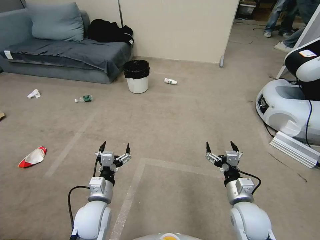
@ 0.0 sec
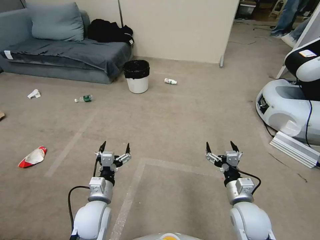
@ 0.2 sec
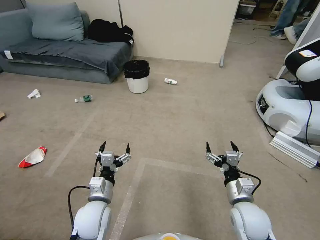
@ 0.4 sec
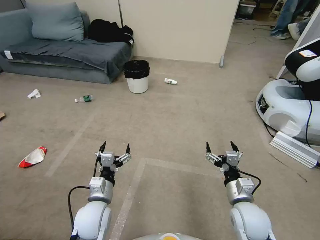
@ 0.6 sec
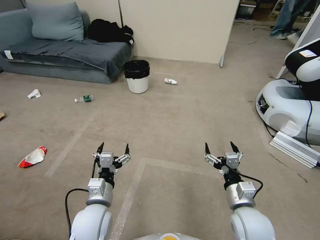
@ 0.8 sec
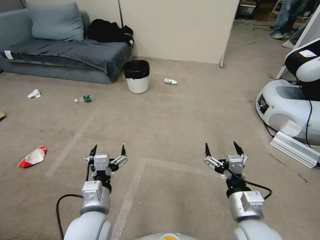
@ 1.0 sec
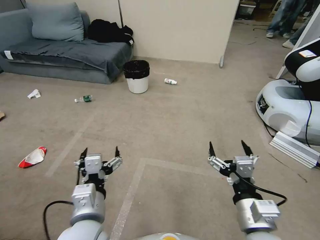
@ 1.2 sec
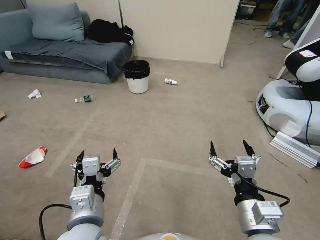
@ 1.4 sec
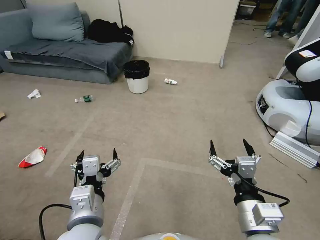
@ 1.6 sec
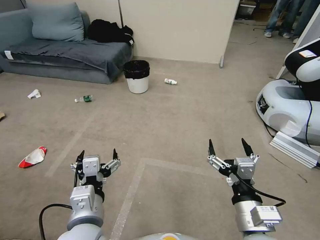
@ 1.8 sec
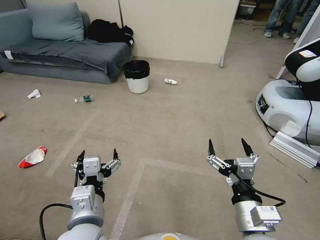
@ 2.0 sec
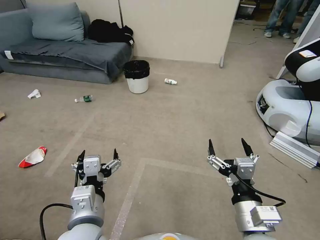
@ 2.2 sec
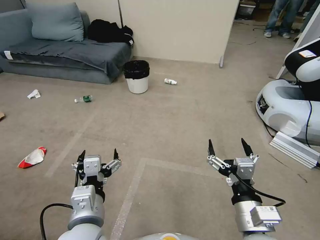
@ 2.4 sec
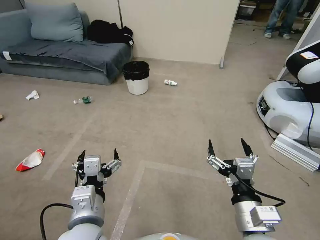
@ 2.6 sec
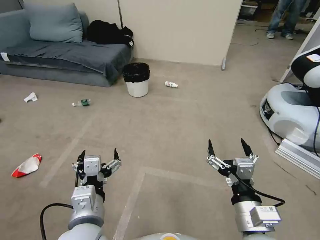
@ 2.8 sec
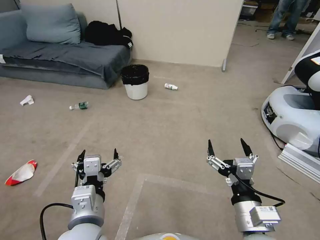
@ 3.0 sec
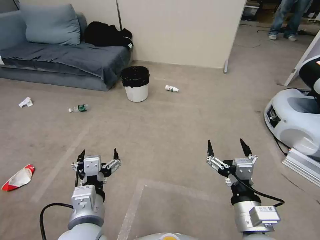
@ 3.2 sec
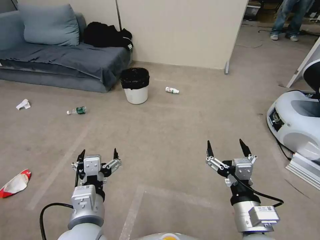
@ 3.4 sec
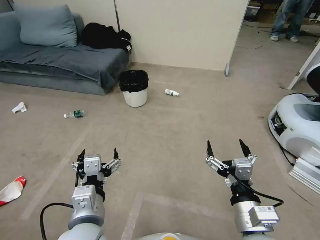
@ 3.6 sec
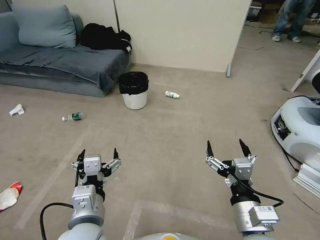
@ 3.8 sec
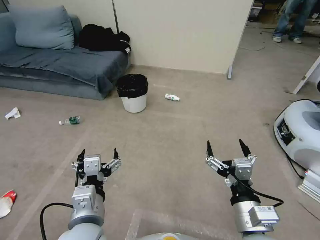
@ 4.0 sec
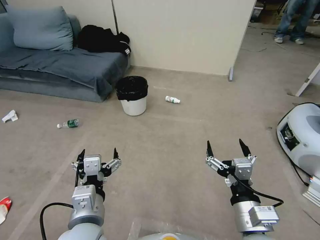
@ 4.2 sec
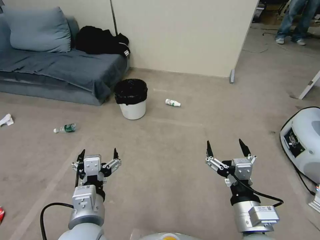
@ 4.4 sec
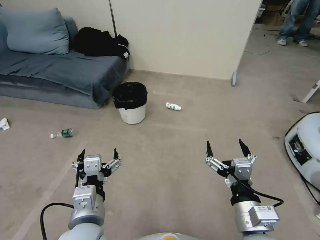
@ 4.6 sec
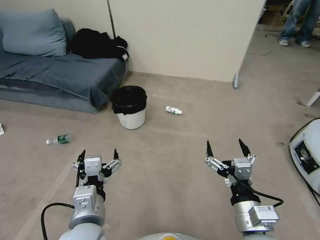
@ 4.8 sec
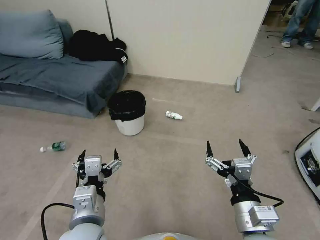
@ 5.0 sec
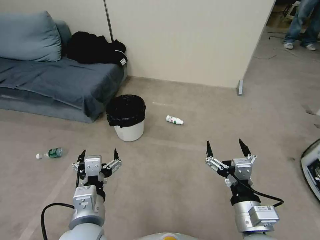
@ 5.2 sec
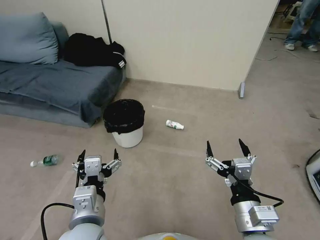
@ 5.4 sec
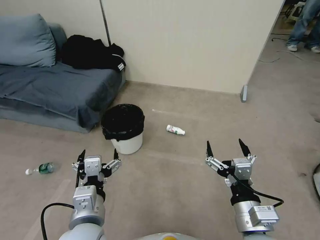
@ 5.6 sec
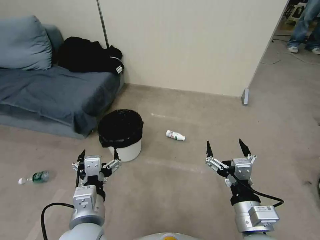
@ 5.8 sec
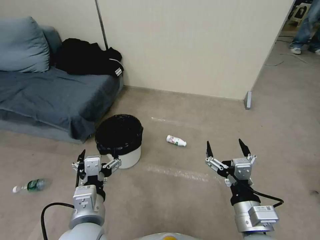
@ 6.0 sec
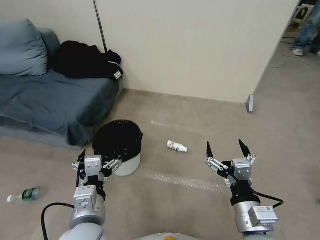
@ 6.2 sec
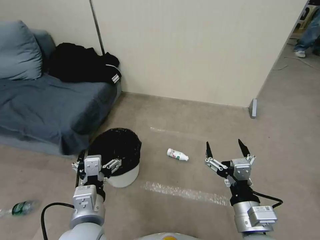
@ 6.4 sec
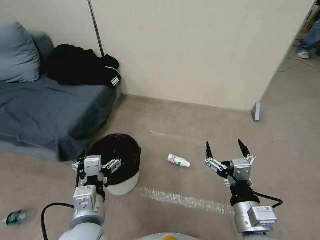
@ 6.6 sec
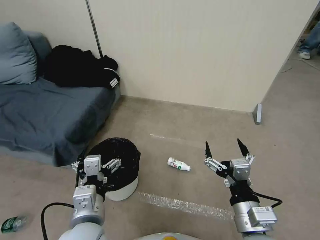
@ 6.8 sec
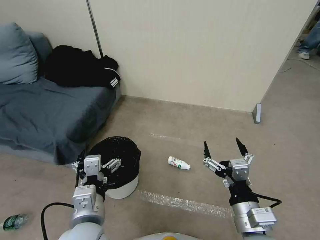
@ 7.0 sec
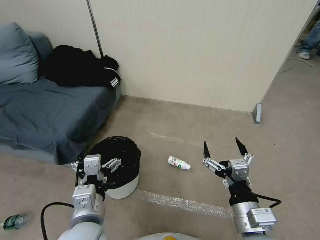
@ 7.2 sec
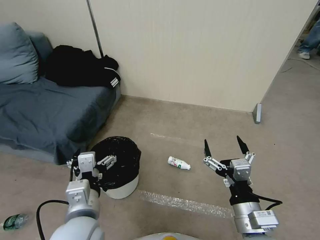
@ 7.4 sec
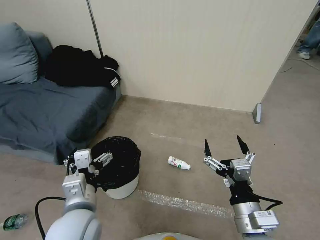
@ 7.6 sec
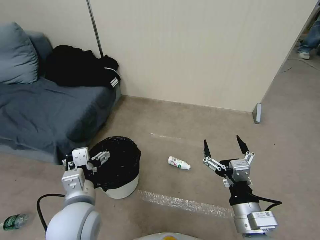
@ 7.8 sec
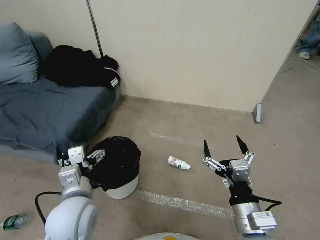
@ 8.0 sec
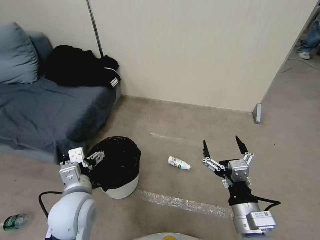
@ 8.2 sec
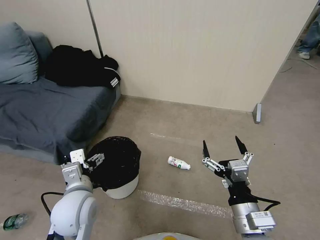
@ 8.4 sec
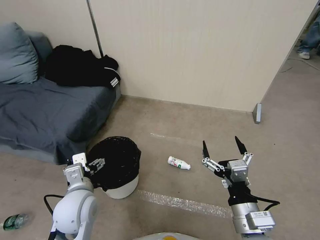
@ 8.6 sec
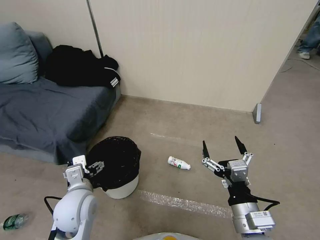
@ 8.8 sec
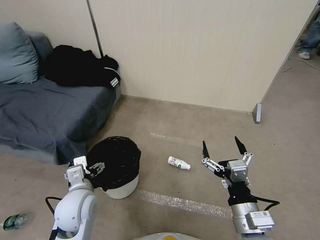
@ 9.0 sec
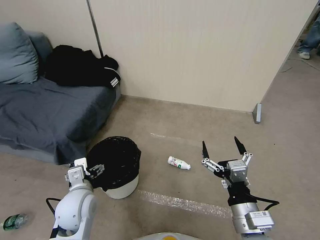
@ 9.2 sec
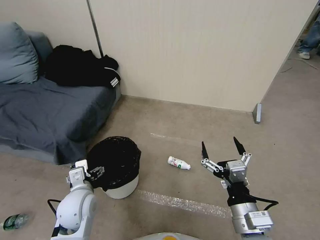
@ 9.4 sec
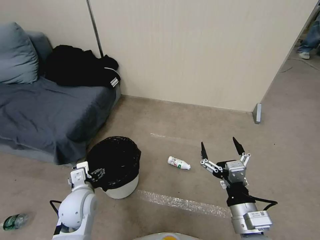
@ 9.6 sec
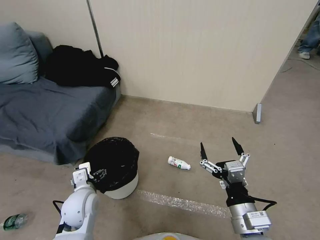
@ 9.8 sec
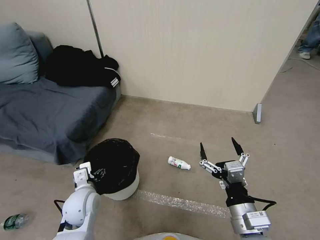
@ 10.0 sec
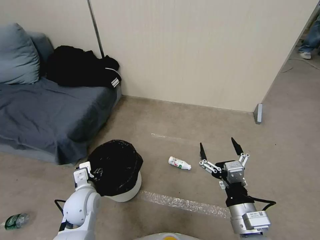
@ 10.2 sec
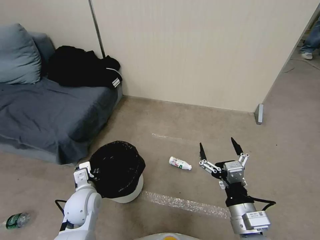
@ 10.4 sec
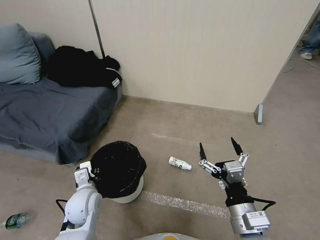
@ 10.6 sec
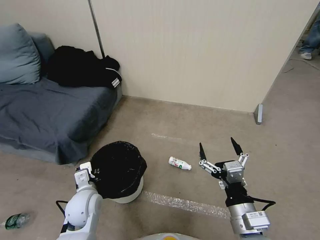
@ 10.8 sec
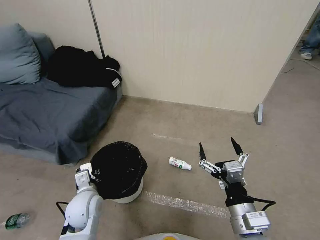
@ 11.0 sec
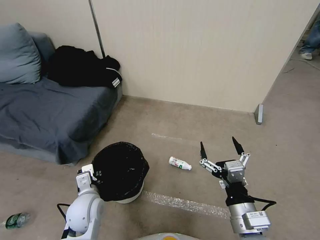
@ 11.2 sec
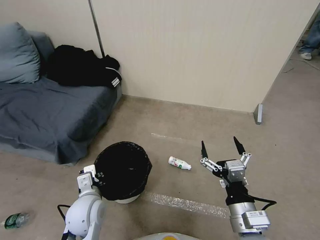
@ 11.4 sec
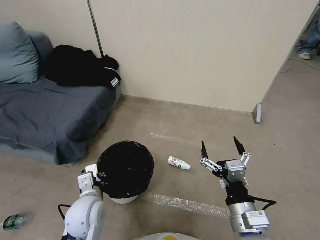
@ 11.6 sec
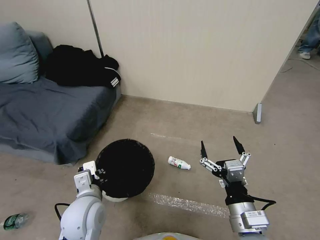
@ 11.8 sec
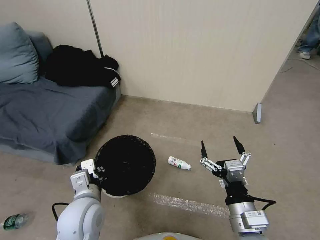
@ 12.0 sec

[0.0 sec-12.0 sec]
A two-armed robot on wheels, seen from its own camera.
Task of the whole recording: Pick up the trash bin, then pick up the garbage from the floor and place it into the trash bin.
1.6 sec to 3.0 sec: Both grippers stay put.
7.6 sec to 9.0 sec: The left gripper shifts approximately 10 cm downward and forward.
9.0 sec to 10.4 sec: The left gripper moves downward, about 5 cm, and closes its fingers.
10.4 sec to 12.0 sec: The left gripper shifts roughly 10 cm upward and backward, and closes.

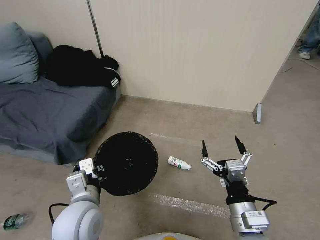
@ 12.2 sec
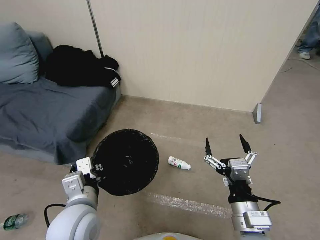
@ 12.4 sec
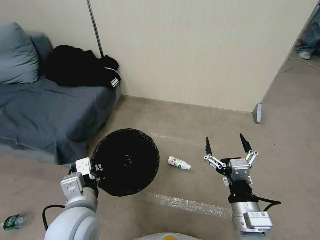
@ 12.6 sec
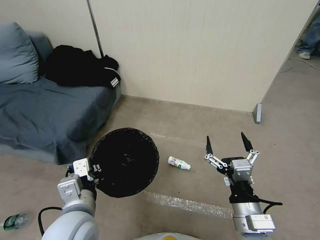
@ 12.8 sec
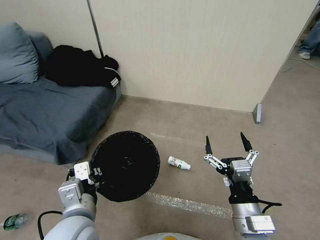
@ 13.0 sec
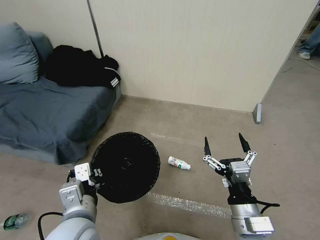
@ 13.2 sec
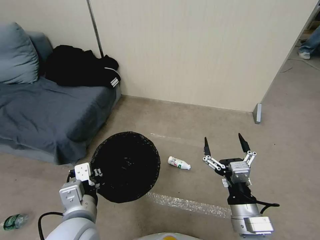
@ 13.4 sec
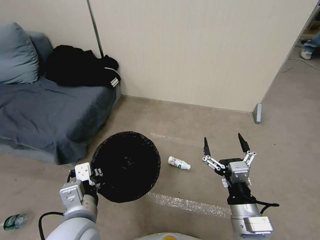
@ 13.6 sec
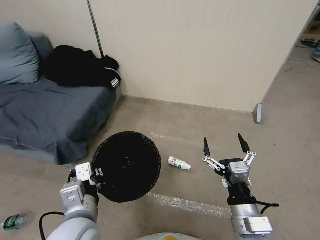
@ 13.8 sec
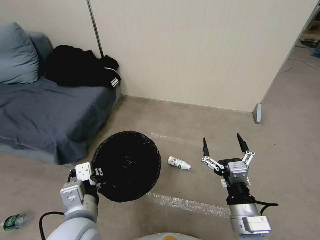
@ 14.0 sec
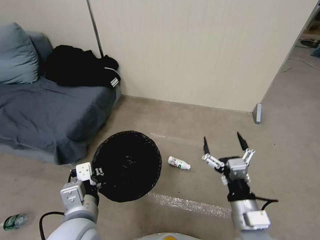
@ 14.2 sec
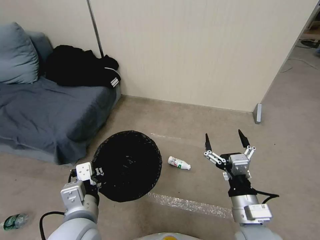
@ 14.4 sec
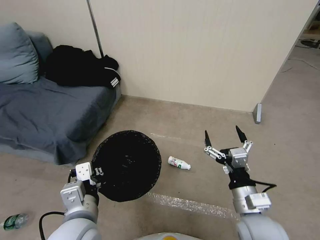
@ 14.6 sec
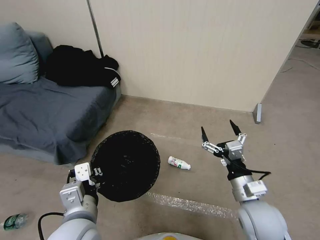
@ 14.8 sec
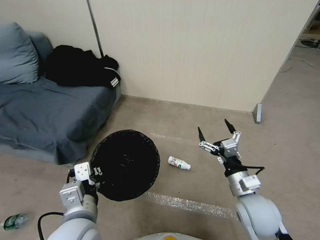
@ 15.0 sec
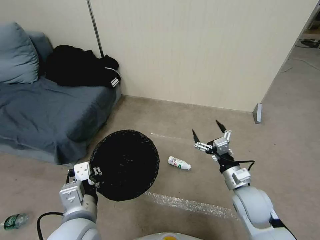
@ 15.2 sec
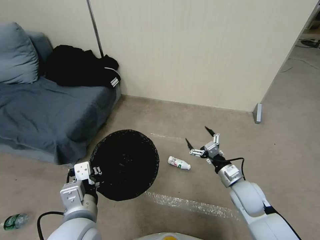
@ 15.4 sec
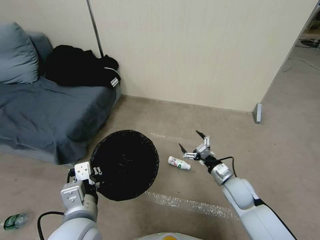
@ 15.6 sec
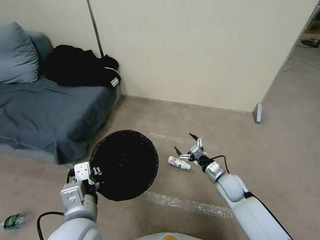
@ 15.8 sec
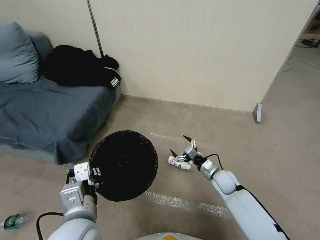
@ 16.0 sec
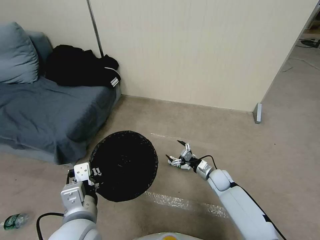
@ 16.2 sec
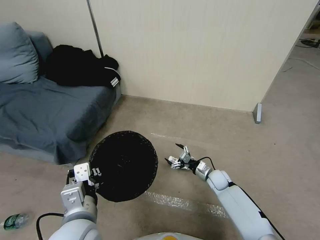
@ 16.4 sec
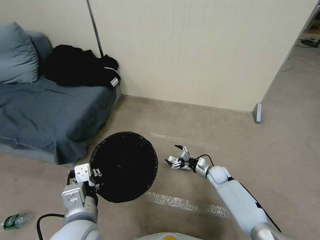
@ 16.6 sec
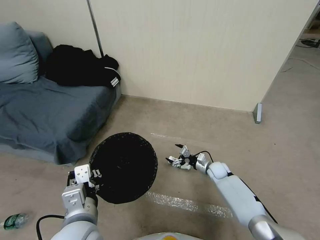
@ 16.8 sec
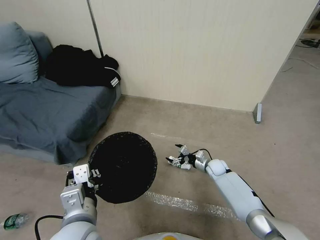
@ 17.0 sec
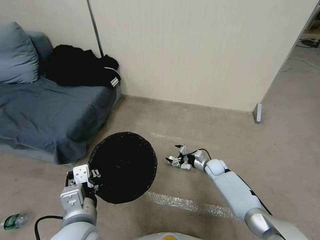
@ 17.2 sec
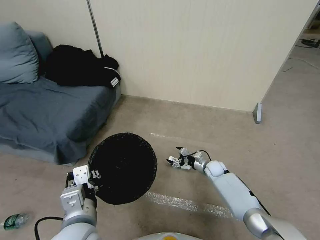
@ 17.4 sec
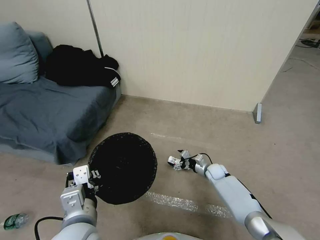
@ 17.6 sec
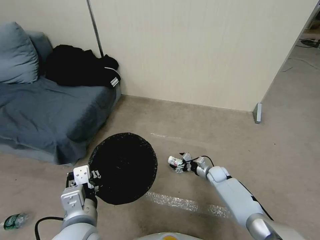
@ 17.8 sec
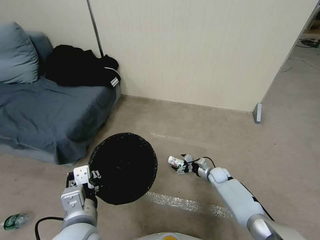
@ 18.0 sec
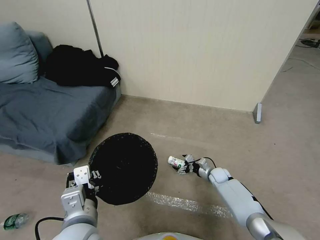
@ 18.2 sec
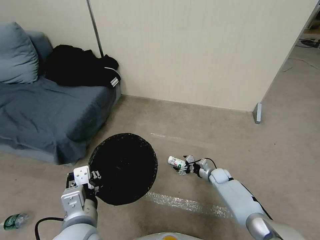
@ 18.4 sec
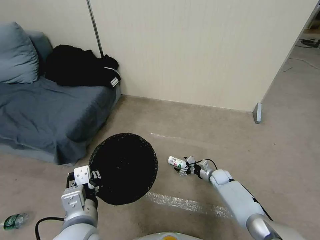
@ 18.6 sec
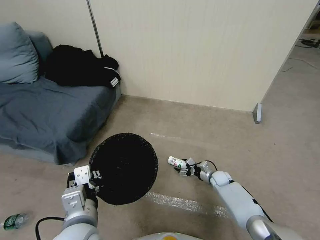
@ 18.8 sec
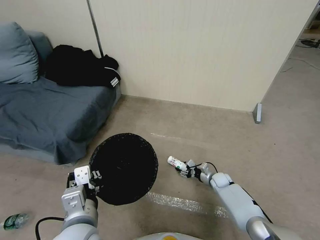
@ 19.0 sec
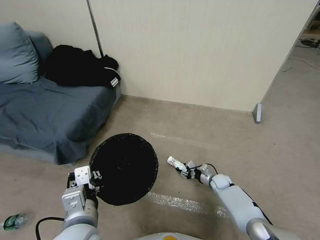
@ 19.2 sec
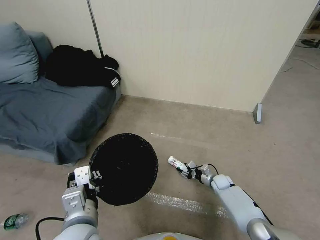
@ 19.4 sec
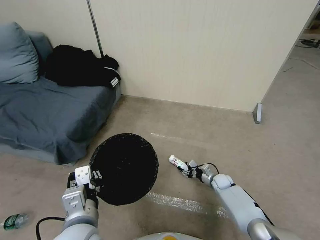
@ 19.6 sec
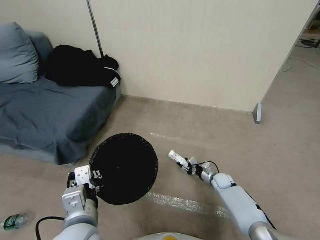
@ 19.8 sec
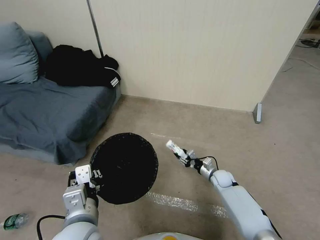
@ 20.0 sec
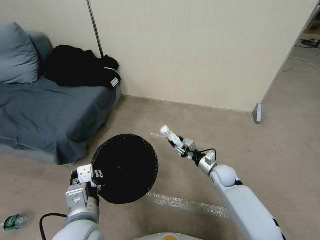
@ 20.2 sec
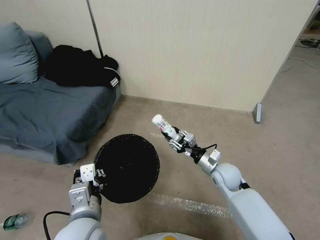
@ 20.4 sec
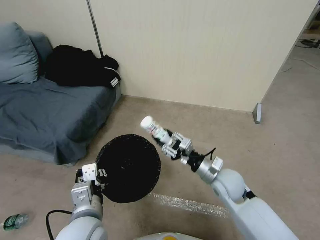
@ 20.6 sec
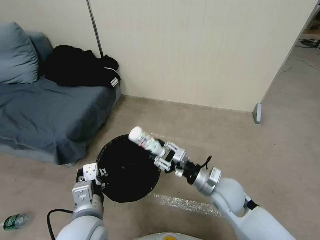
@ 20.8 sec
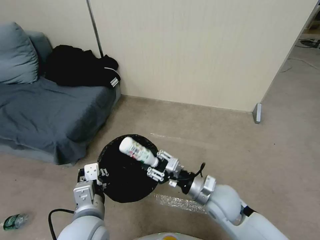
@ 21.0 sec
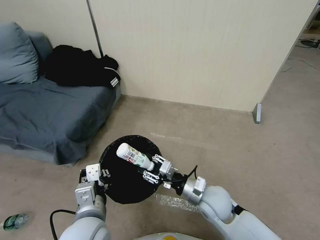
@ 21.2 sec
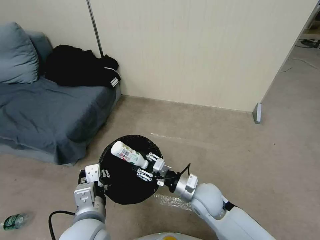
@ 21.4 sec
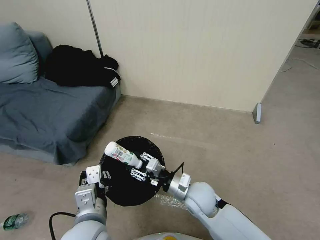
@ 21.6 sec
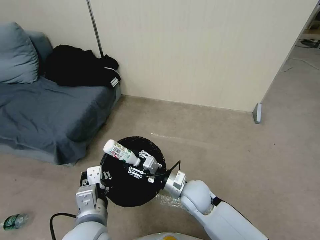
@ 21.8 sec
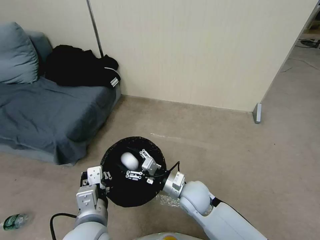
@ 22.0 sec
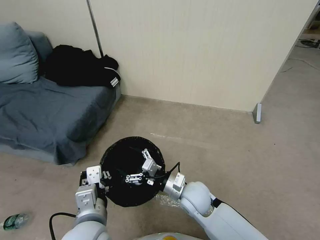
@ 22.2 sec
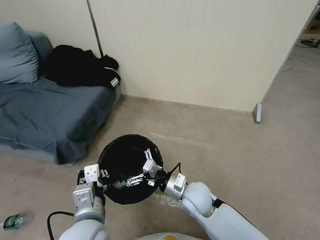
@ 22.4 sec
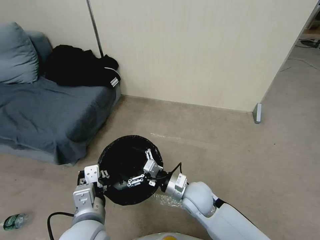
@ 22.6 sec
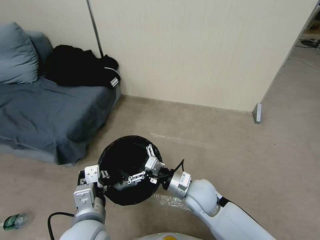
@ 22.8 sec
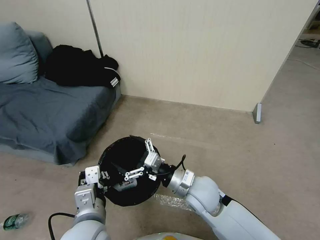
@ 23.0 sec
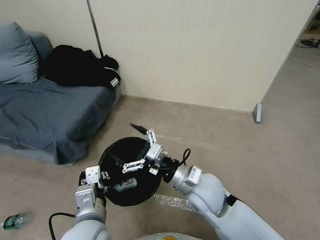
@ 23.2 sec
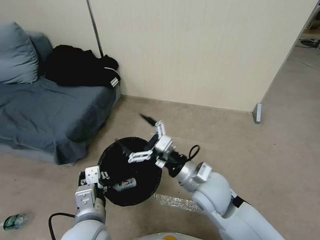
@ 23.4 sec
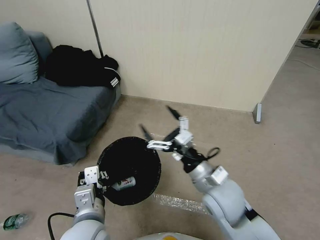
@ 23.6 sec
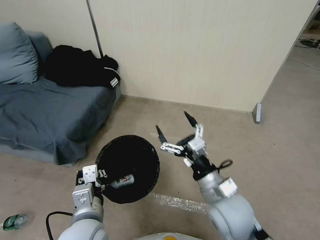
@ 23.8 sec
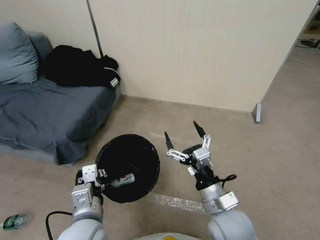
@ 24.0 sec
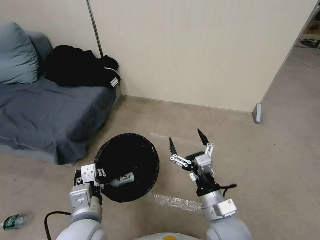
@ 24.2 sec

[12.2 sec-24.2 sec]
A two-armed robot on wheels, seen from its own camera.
Task of the whole recording: Pick up the trash bin, then pick up the garbage from the floor and place it into the trash bin.
12.2 sec to 13.8 sec: The grippers make only small movements.
13.8 sec to 15.2 sec: The right gripper is displaced forward, to the right and downward by some 15 cm.
15.2 sec to 16.6 sec: The right gripper goes some 25 cm downward and forward.
18.2 sec to 19.8 sec: The right gripper closes up.
19.8 sec to 21.2 sec: The right gripper shifts some 30 cm upward, backward and to the left.
21.2 sec to 22.6 sec: The right gripper moves approximately 5 cm, and opens its fingers.
22.6 sec to 24.2 sec: The right gripper shifts approximately 15 cm backward and upward.
